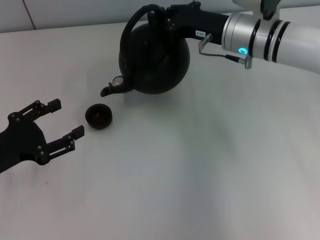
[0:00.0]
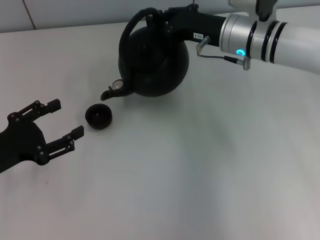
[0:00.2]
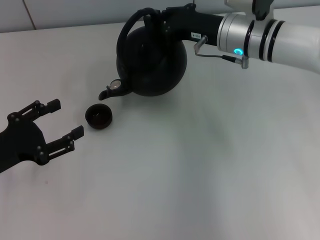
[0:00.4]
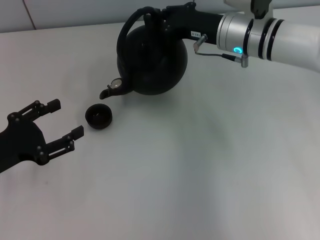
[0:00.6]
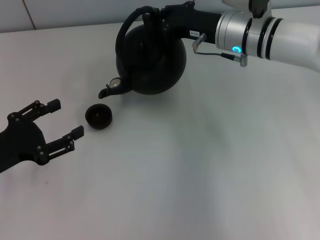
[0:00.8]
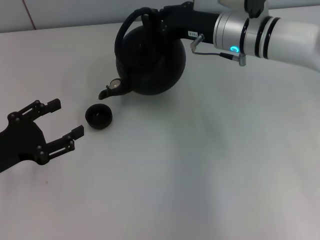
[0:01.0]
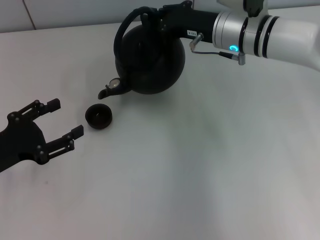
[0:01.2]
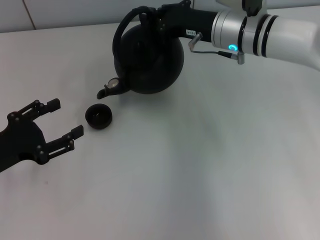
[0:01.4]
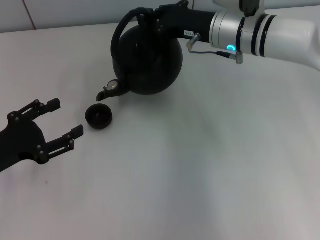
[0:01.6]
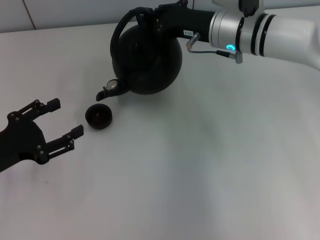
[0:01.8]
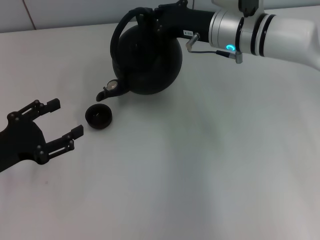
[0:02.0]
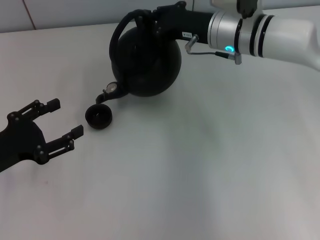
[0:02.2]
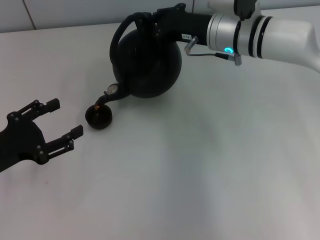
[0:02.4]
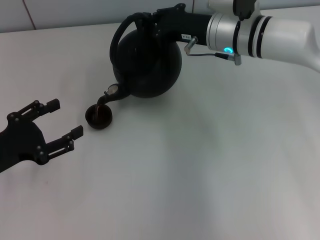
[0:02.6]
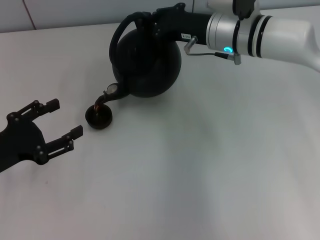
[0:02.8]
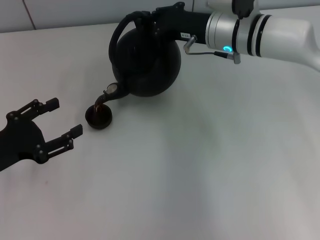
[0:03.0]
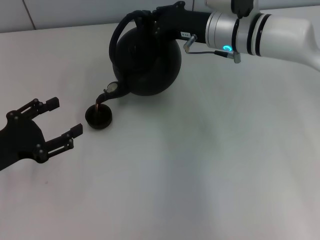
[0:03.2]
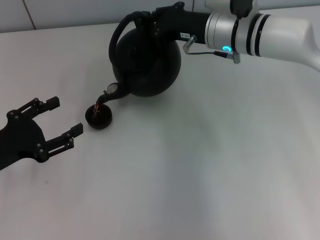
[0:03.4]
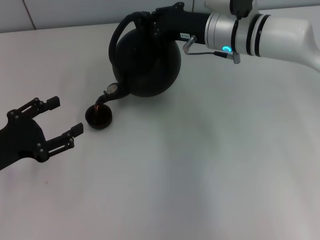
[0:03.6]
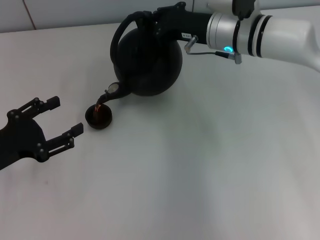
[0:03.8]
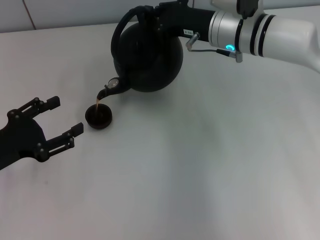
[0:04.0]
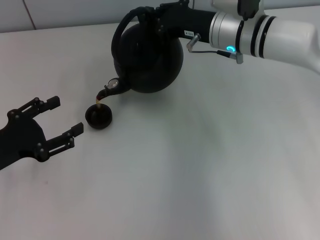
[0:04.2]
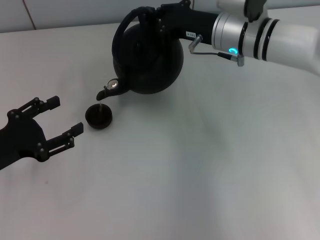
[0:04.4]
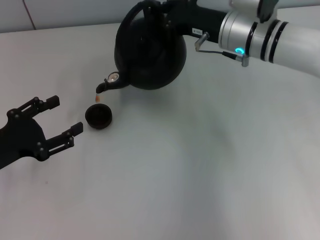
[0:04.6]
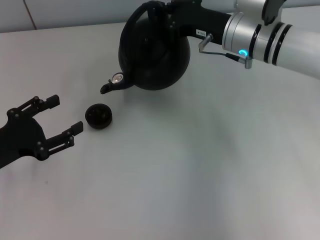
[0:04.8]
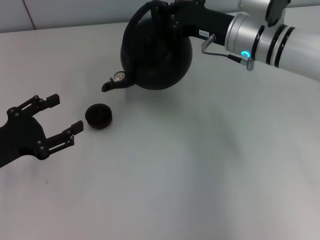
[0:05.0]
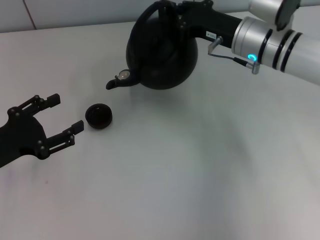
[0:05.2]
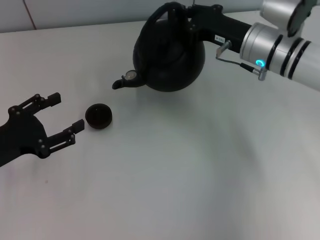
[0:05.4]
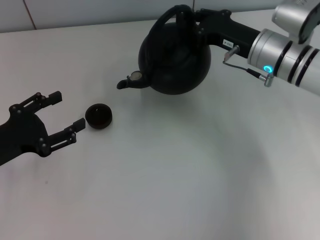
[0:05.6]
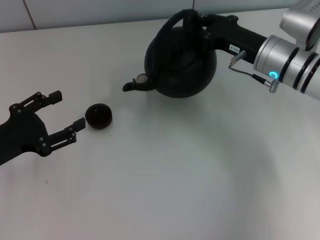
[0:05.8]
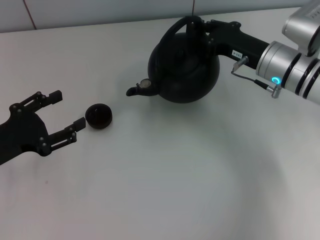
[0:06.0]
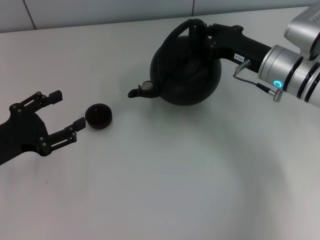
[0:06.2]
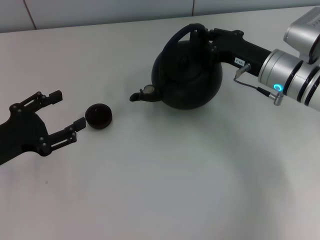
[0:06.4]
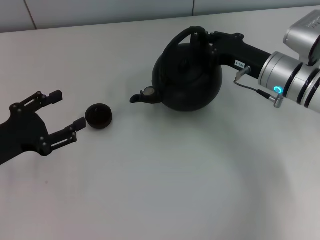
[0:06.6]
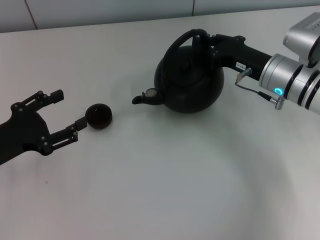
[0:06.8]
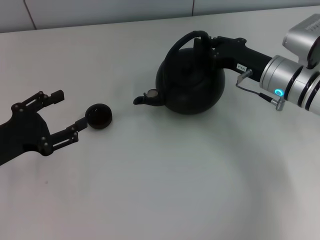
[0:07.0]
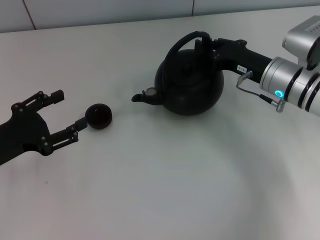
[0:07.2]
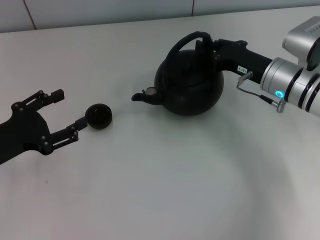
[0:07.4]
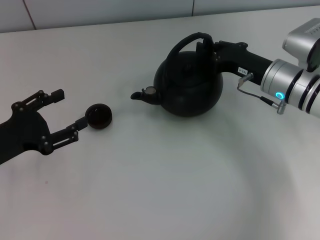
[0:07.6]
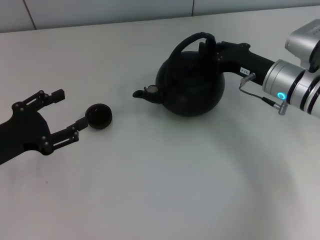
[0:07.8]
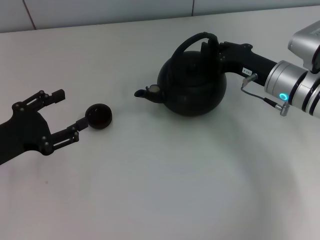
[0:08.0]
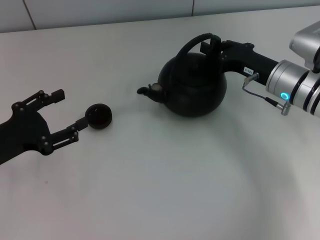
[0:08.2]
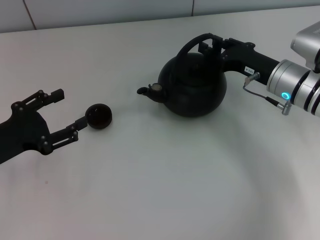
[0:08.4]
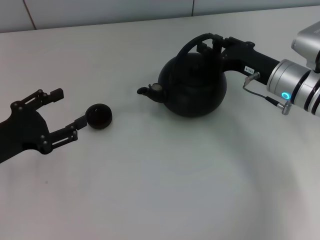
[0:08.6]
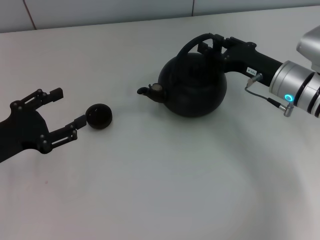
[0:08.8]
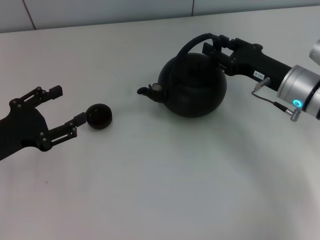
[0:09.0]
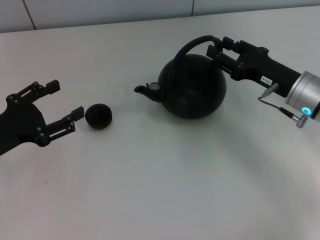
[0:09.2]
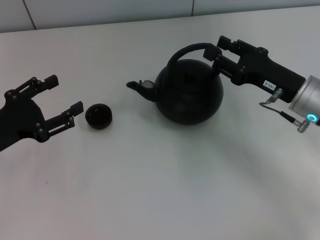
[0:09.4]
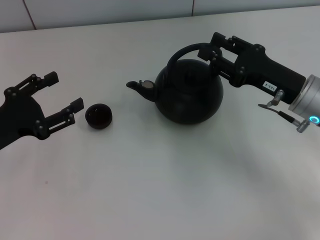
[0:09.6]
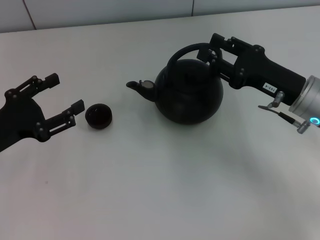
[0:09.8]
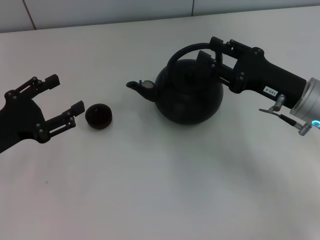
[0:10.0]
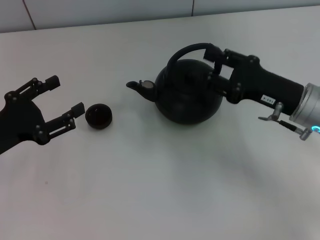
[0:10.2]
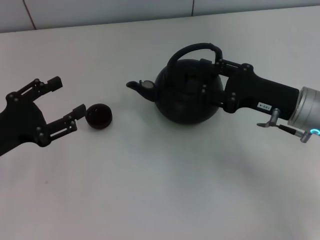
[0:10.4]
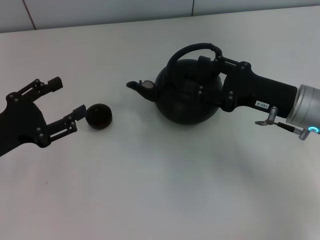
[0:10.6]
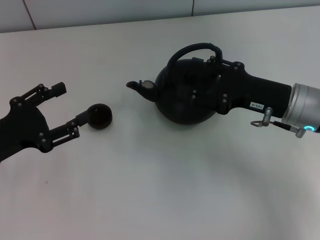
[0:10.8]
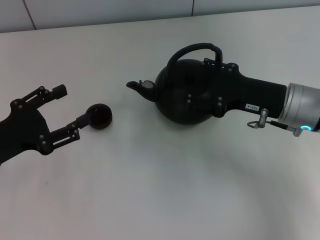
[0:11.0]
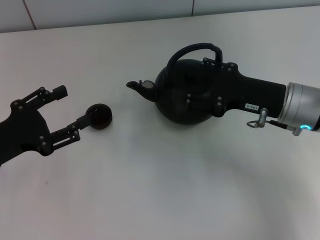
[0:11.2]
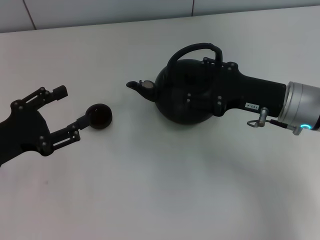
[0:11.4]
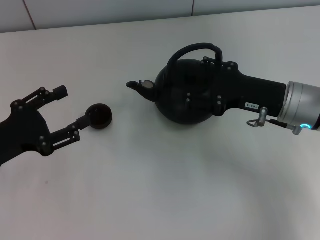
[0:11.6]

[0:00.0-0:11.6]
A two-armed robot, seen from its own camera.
Task of the whole recording: Grasp the handle of the teapot with one hand and pour tea into the teacup.
Step, 0:05.6 to 0:09.8: Put down the teapot with the right gripper.
0:00.0 to 0:01.4: The grippers make only small movements.
0:01.4 to 0:04.4: The two grippers keep their place.
0:04.4 to 0:05.8: The right gripper heads to the right, covering some 5 cm.
0:05.8 to 0:07.2: The grippers make only small movements.
0:07.2 to 0:08.8: The right gripper opens up.
0:08.8 to 0:10.2: The right gripper goes approximately 5 cm backward.
0:10.2 to 0:11.6: The right gripper opens its fingers.

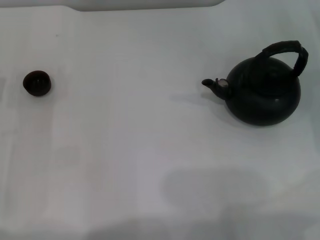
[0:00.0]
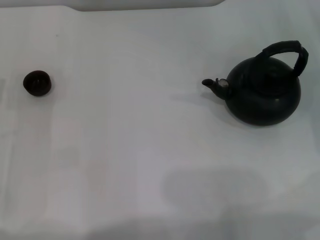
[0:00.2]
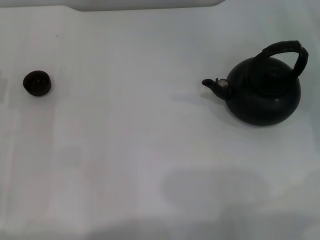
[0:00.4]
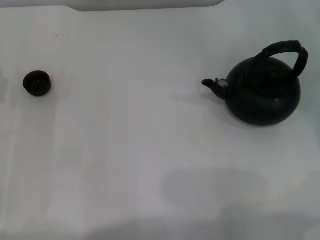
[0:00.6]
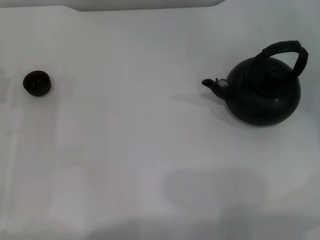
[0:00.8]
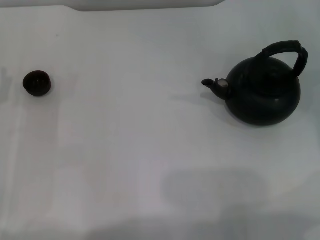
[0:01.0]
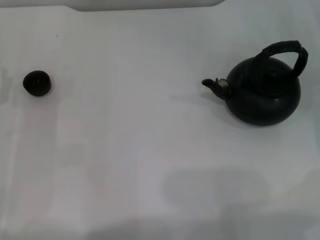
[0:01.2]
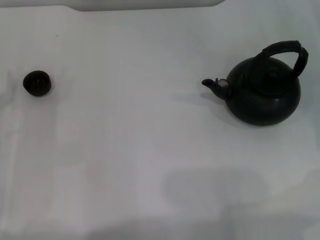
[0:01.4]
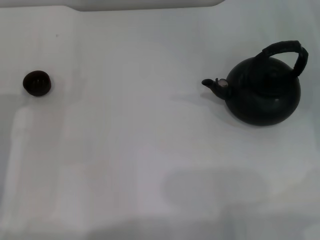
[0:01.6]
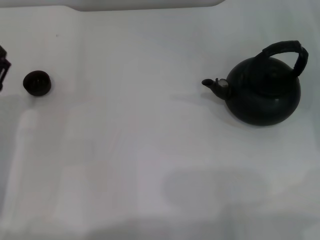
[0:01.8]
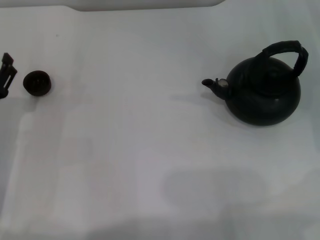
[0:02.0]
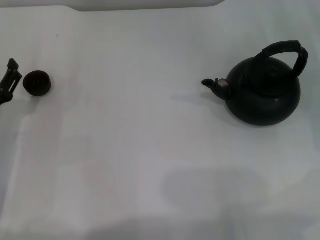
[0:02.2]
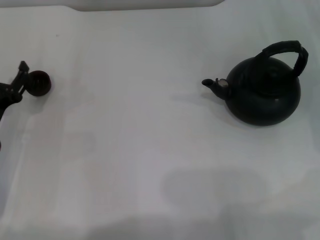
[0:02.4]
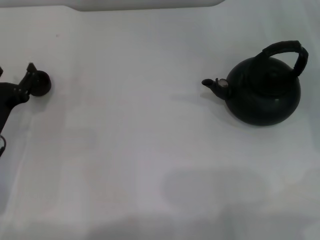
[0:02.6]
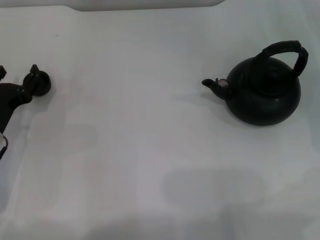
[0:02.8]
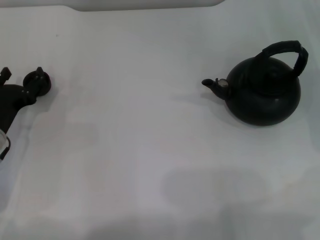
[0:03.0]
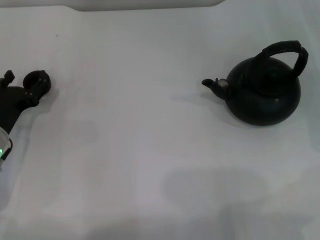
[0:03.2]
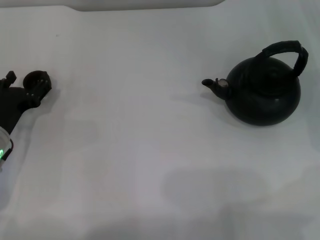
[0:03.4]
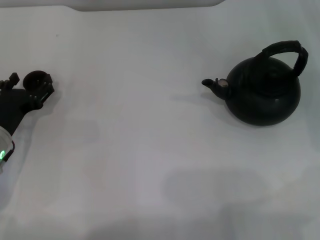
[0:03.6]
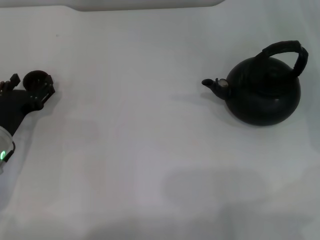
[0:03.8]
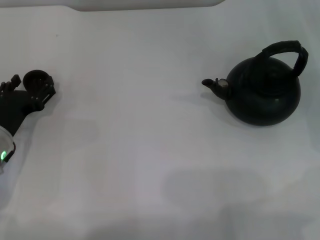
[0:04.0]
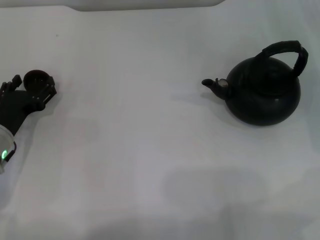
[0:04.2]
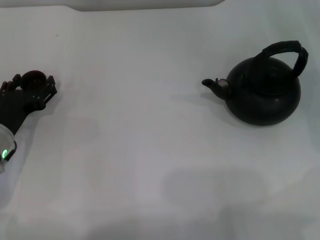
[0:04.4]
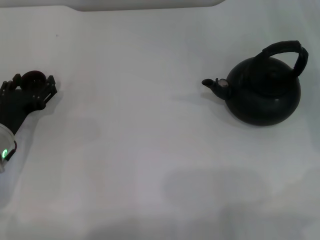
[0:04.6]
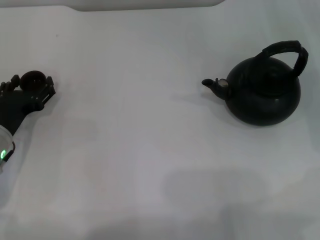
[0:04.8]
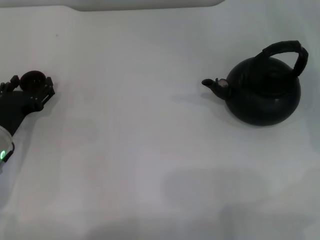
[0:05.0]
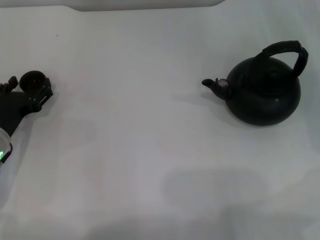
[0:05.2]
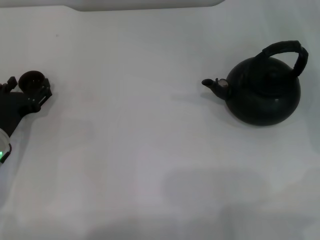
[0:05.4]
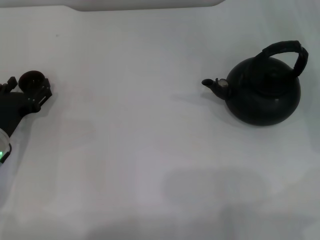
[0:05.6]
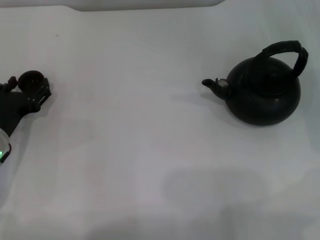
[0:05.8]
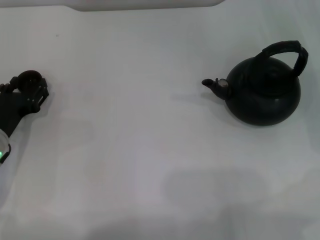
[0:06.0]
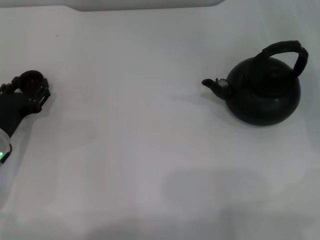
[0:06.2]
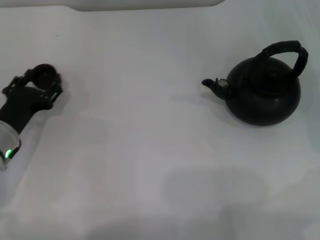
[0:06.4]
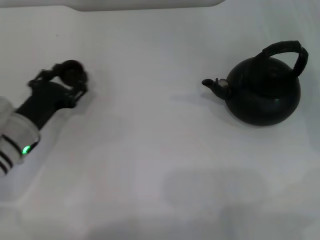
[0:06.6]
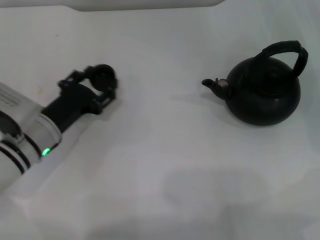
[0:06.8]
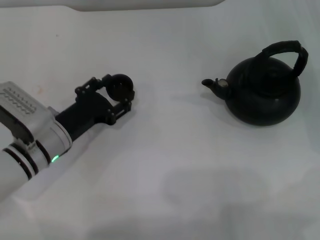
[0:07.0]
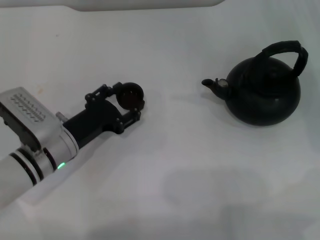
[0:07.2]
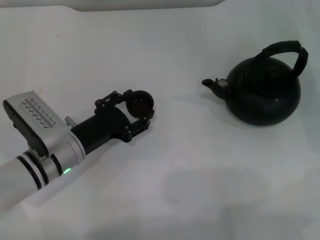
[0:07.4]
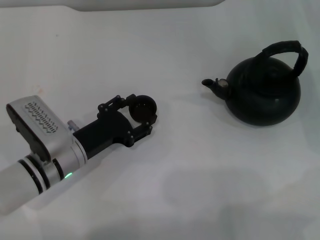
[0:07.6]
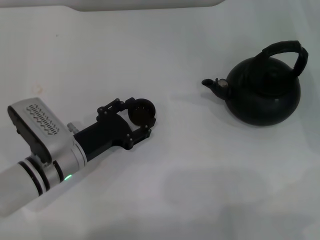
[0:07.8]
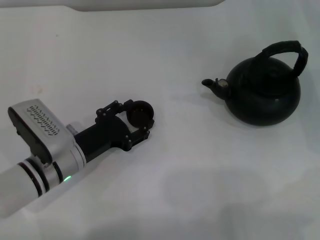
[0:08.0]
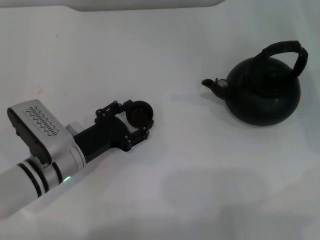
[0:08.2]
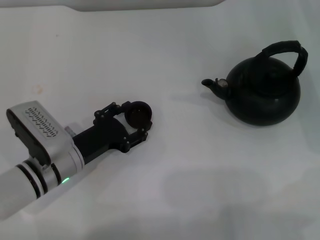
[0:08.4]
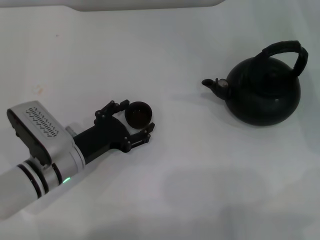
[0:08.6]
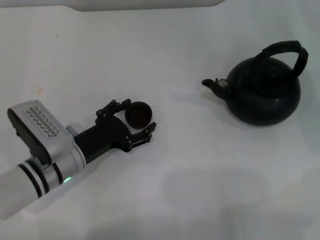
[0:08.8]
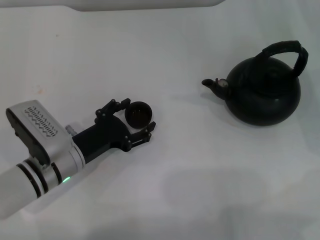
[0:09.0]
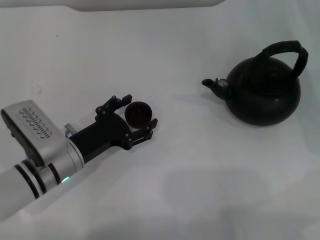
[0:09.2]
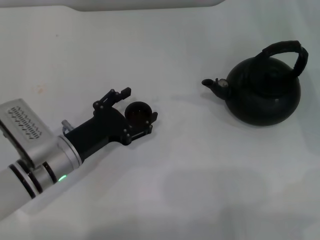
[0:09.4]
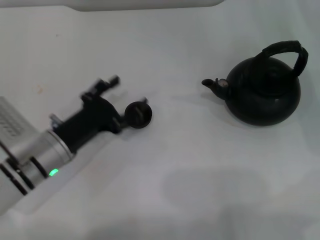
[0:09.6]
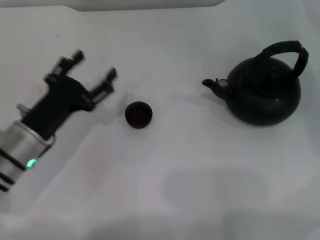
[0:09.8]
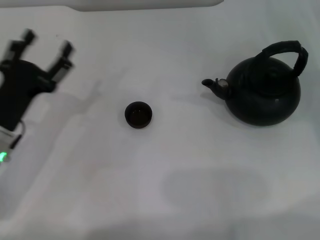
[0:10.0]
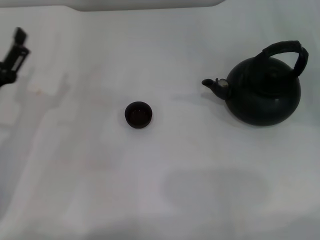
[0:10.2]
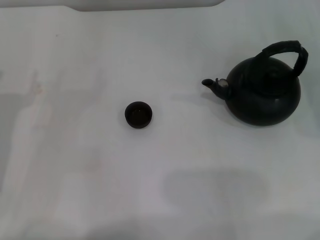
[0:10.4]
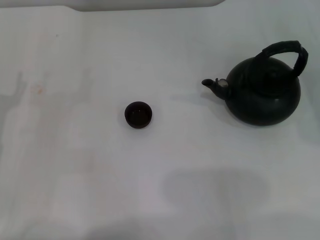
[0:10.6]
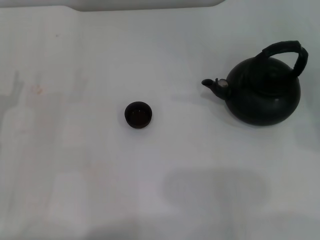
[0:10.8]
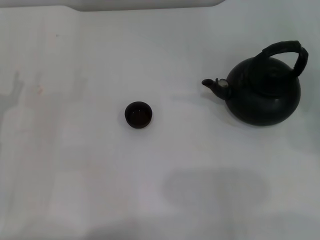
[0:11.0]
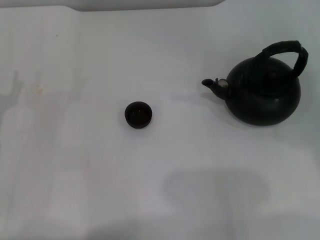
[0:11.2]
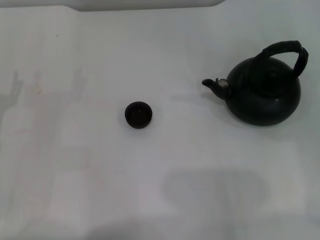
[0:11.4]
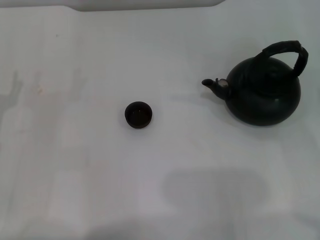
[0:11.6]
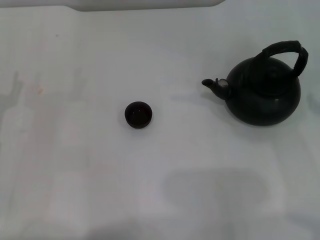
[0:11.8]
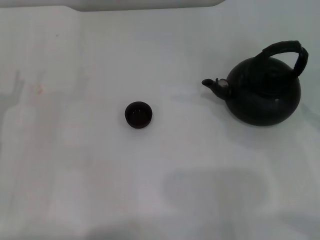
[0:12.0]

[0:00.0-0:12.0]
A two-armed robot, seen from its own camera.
Task of the whole recording: Grasp the handle of the teapot with one hand and pour tea into the teacup.
Step, 0:00.0 to 0:06.4: Pick up the teacup with the left gripper.
Step, 0:06.6 to 0:09.2: Place the teacup in the center of view with the left gripper.
0:01.6 to 0:03.0: The grippers make only small movements.
0:03.0 to 0:04.4: The grippers stay close to where they were, moving slightly.
0:04.4 to 0:06.0: The left gripper closes.
0:06.0 to 0:07.6: The left gripper travels to the right by about 10 cm.
0:07.6 to 0:09.0: The left gripper opens up.
0:09.0 to 0:10.4: The left gripper is displaced to the left by about 10 cm, while the right gripper is displaced backward by roughly 5 cm.
